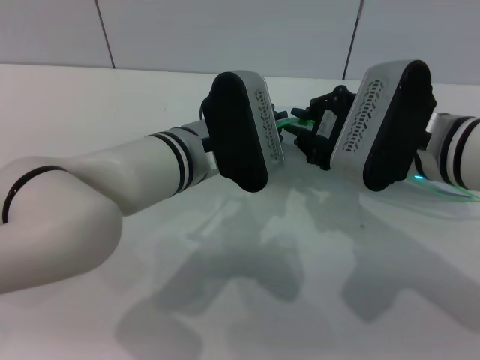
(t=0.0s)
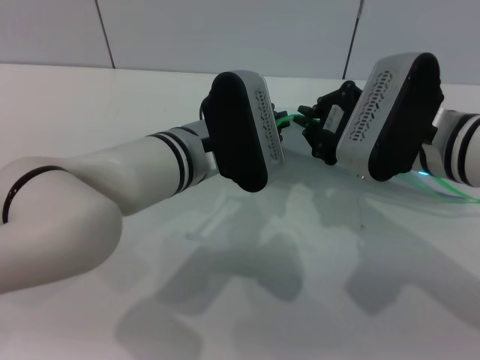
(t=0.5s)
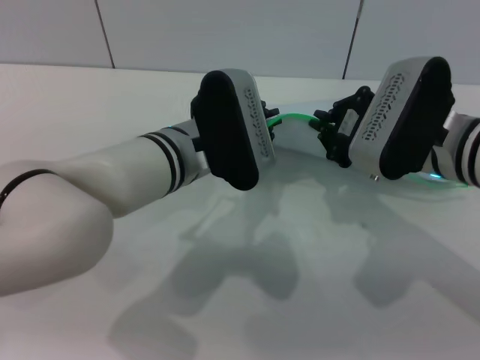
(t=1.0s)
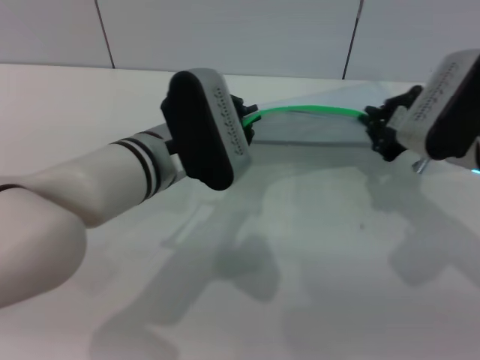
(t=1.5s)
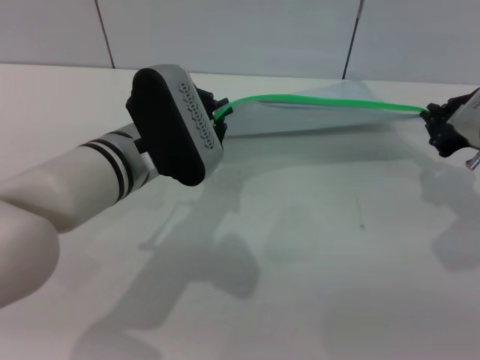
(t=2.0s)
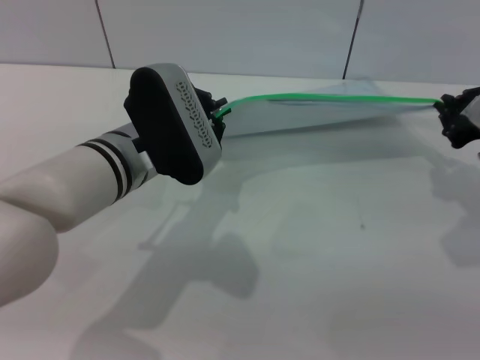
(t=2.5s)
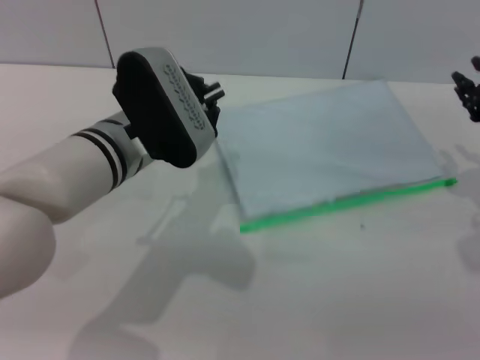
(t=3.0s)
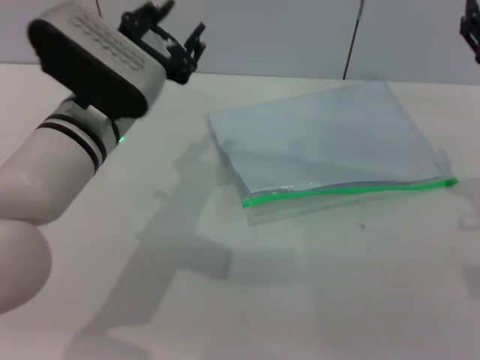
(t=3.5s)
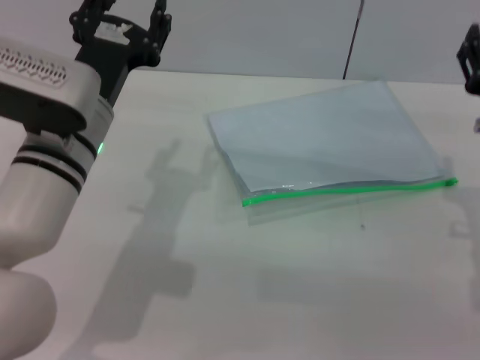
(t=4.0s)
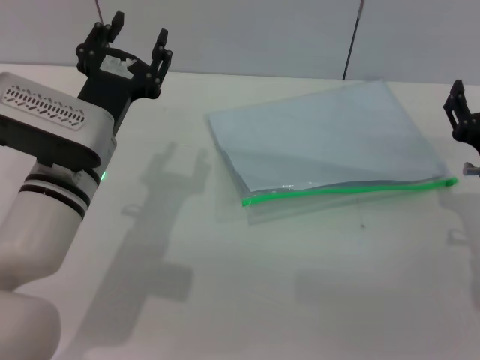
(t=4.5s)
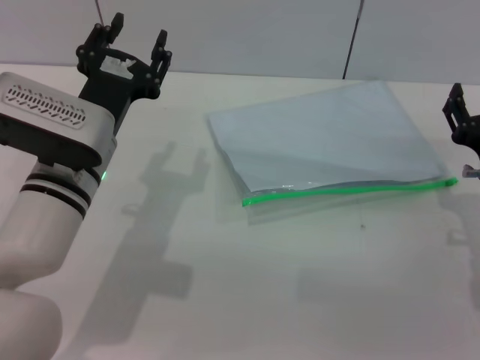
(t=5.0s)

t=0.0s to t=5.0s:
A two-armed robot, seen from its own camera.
Step, t=0.0s to t=2.5s: Pulling up the zipper on the transparent plastic bag with the right gripper to close it.
Step, t=3.0s to t=3.5s: Place the transparent plastic bag.
t=0.0s to t=2.5s: The left gripper heads to the left, covering some 5 cm. The right gripper is displaced to the right by roughly 15 cm.
t=2.5s to t=5.0s: The right gripper is displaced downward and backward by some 10 cm, and opens up, while the left gripper opens.

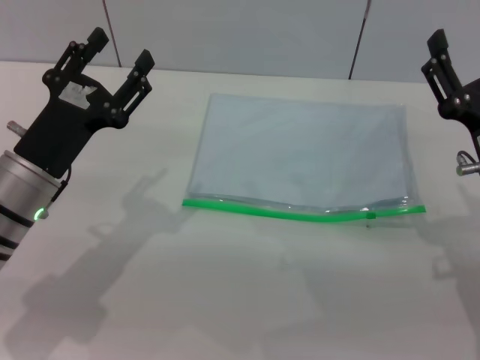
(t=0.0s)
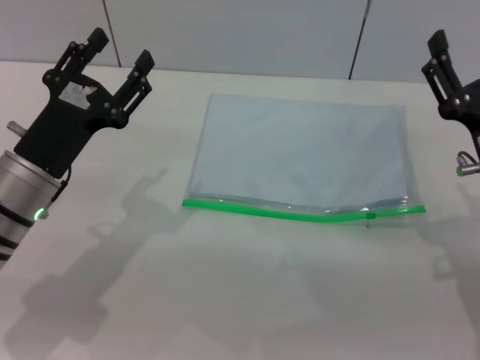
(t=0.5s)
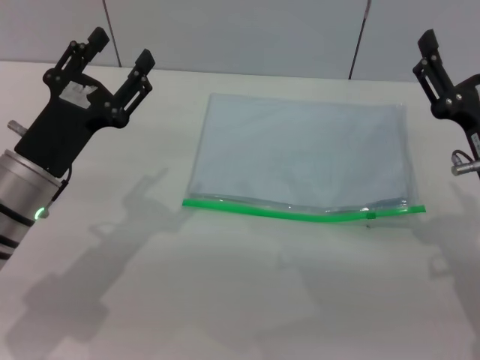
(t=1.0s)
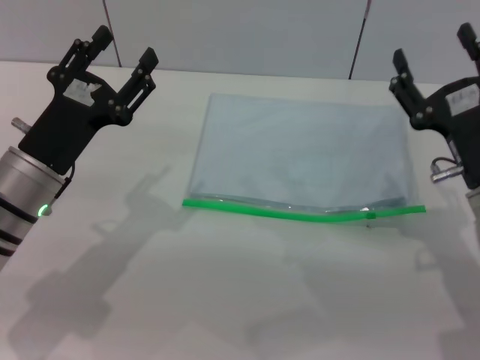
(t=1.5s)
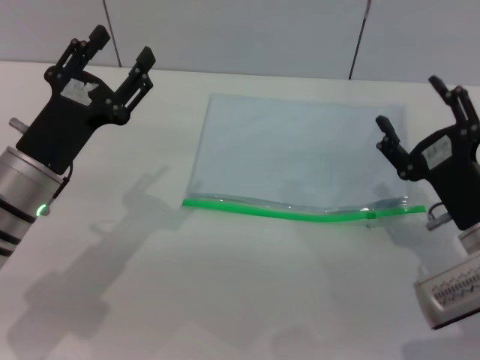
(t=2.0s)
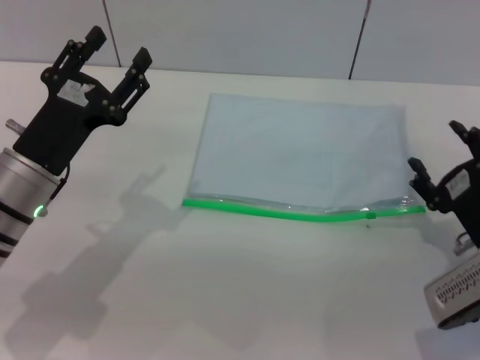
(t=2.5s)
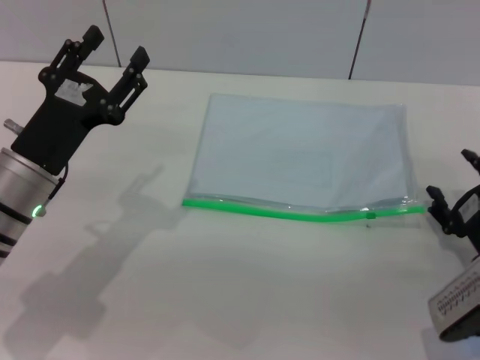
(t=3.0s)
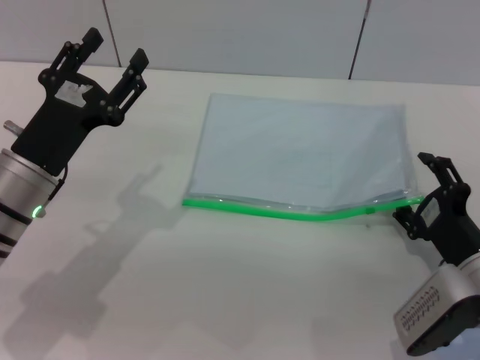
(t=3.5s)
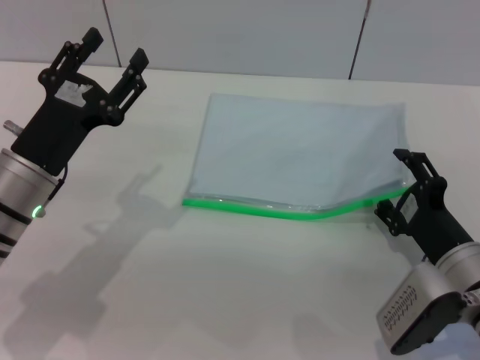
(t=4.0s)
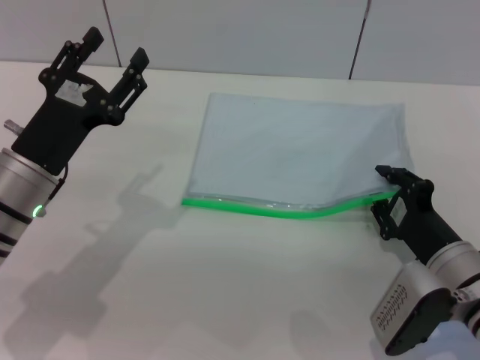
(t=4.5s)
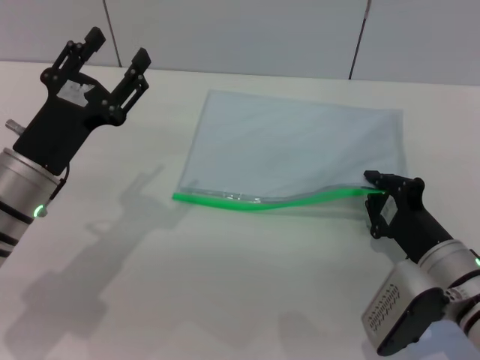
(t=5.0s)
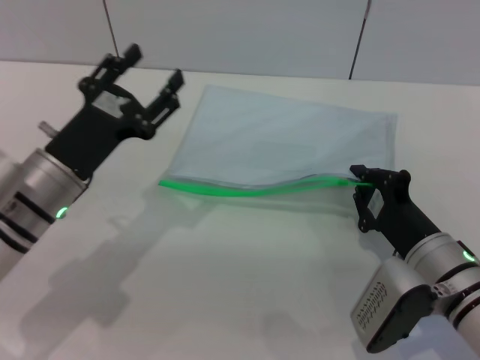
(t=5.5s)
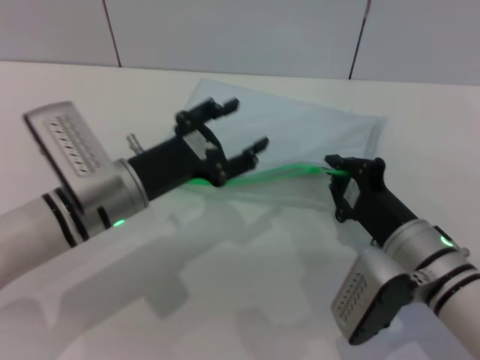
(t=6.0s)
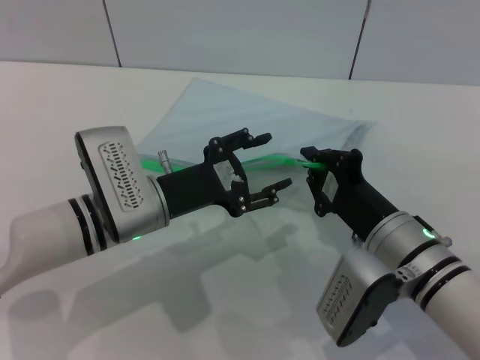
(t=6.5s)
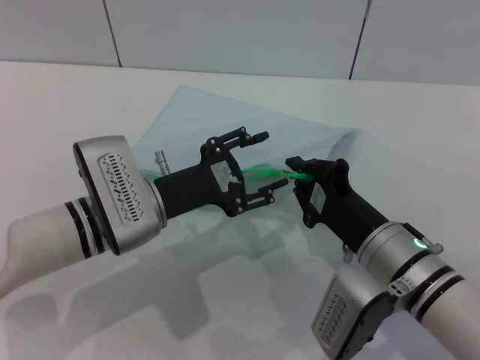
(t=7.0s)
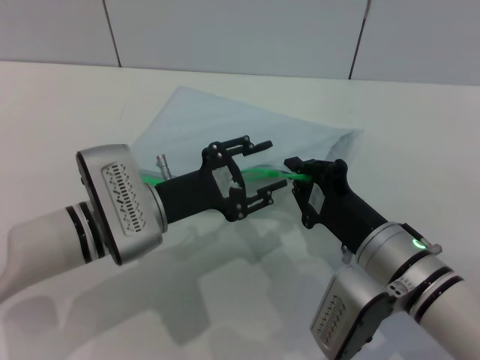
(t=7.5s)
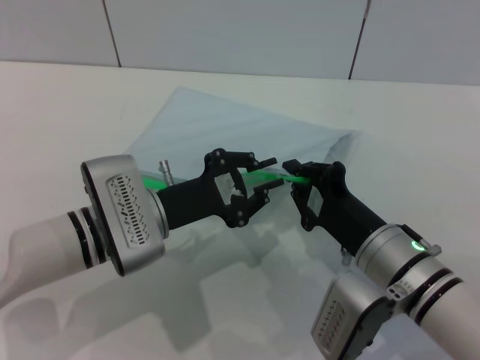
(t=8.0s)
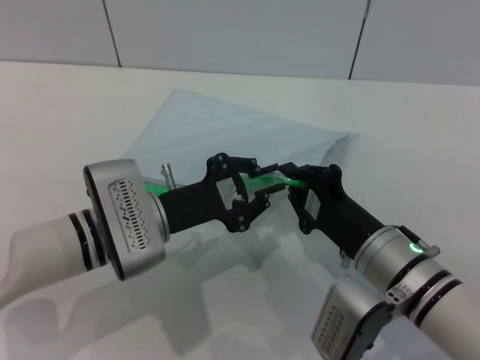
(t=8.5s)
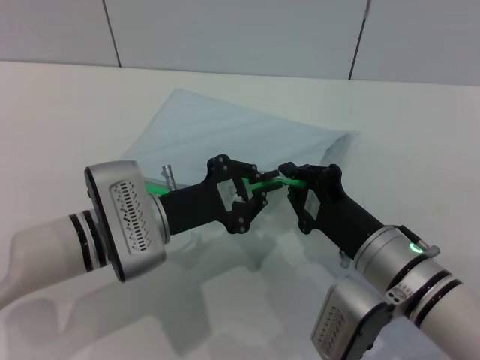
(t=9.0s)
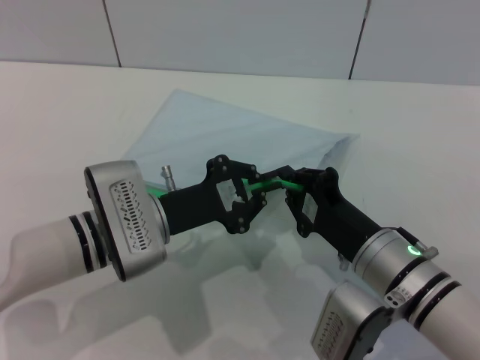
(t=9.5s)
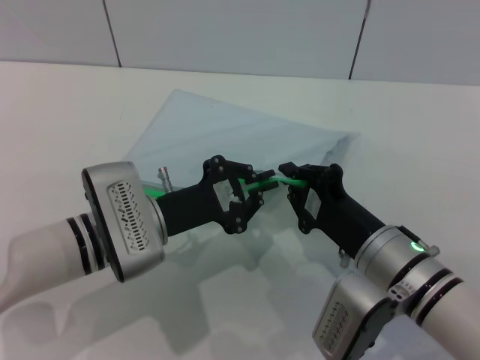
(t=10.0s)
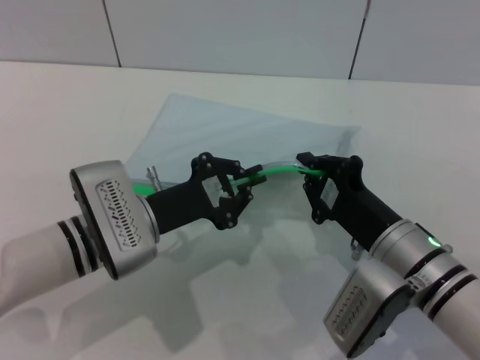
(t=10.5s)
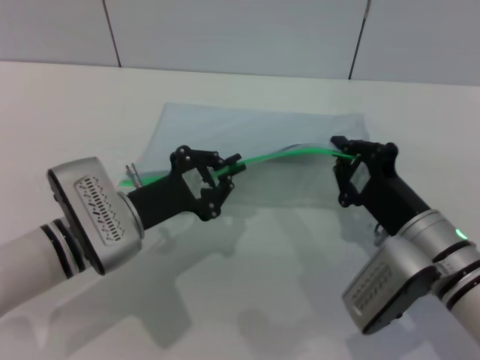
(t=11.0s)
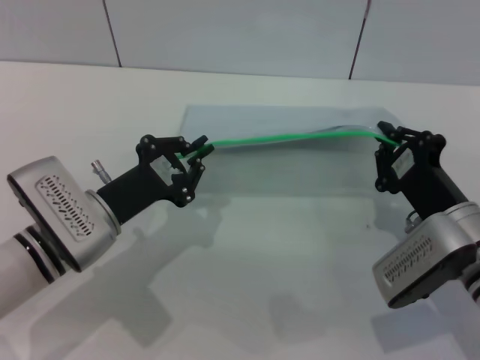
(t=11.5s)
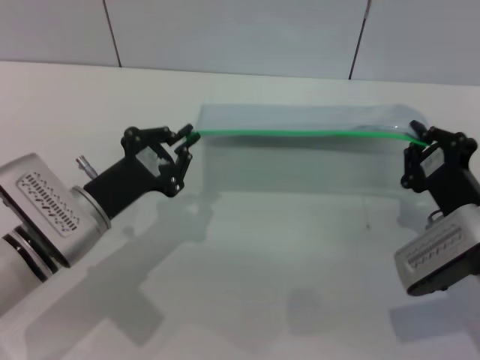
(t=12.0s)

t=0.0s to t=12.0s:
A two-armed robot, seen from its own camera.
Step, t=0.0s to t=6.5s: Pick up the transparent plastic bag with the right gripper.
t=4.0s to t=6.0s: The right gripper shifts by some 5 cm, and closes its fingers. The left gripper is displaced to the right by approximately 5 cm.
t=6.0s to t=8.0s: The left gripper closes.
t=8.0s to t=10.0s: Neither gripper changes place.
t=10.0s to t=12.0s: The right gripper moves to the right, roughly 10 cm. Meanwhile the left gripper changes place by roughly 5 cm.

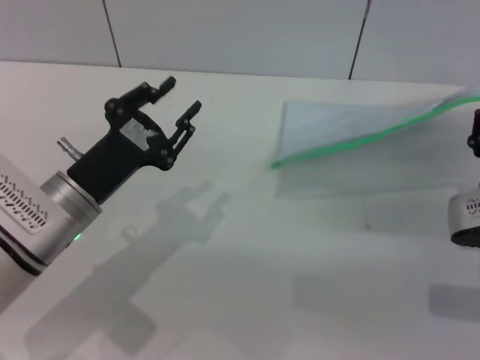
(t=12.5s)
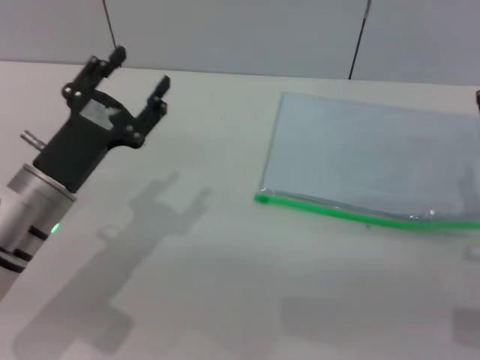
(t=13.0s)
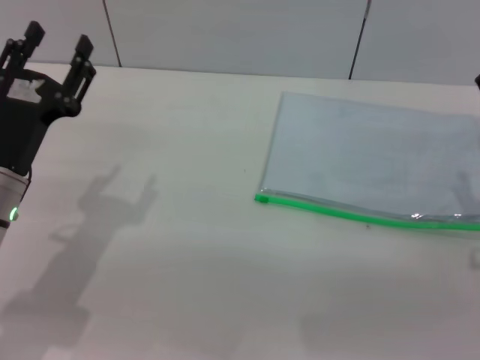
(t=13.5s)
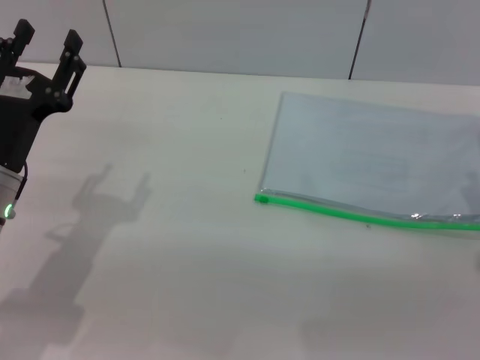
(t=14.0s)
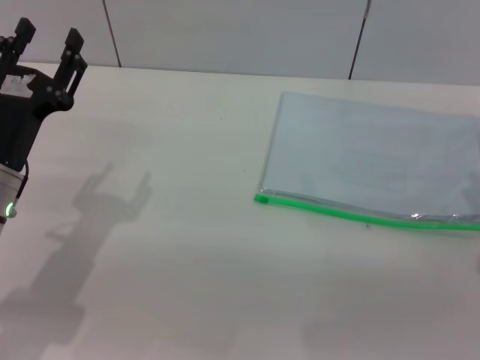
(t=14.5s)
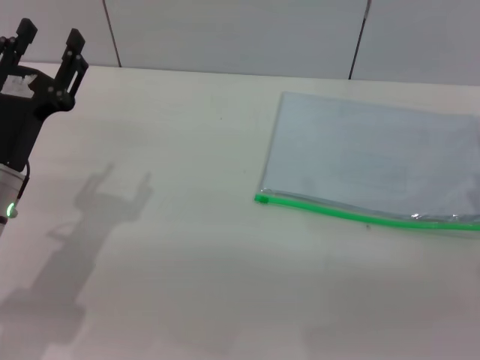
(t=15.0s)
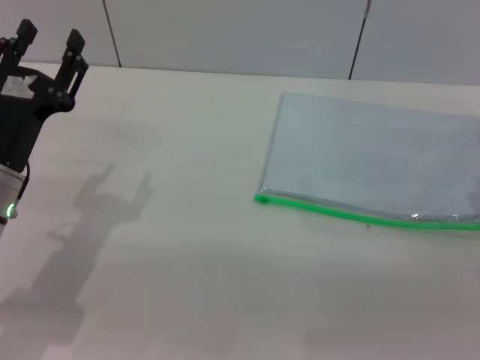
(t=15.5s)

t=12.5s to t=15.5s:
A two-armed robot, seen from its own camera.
Step, t=12.5s to t=13.0s: Place the transparent plastic bag.
t=12.5s to t=14.0s: The left gripper moves about 5 cm, and opens up. The right gripper opens.
t=14.0s to t=15.5s: Both grippers stay put.
